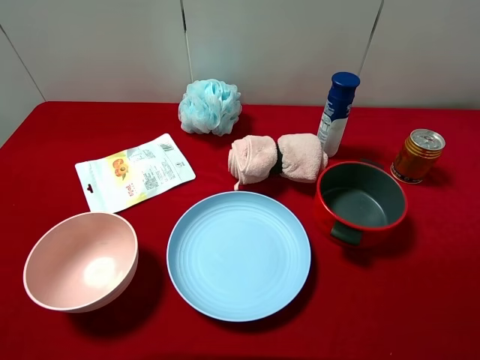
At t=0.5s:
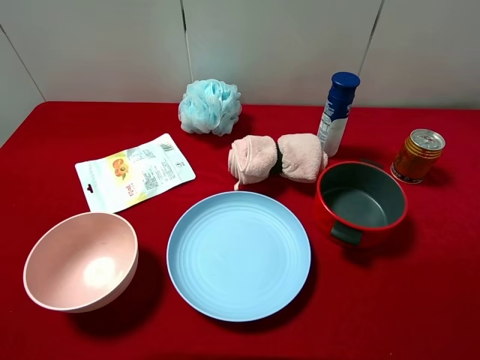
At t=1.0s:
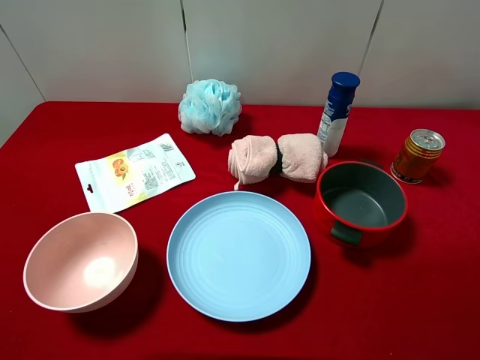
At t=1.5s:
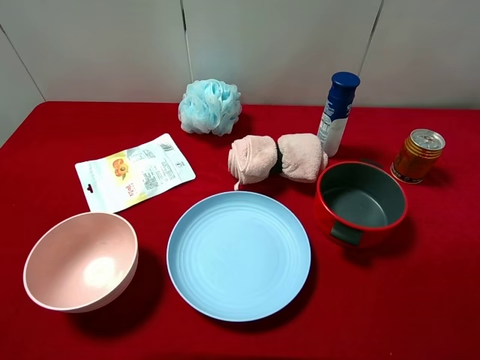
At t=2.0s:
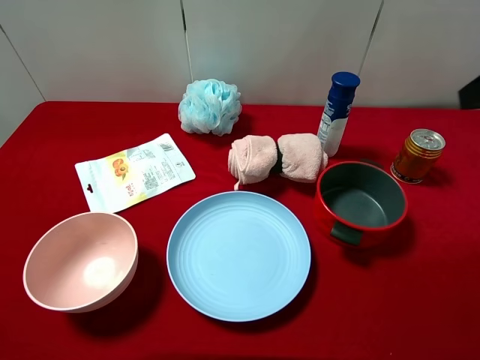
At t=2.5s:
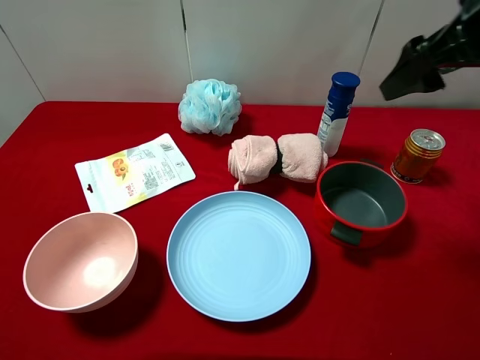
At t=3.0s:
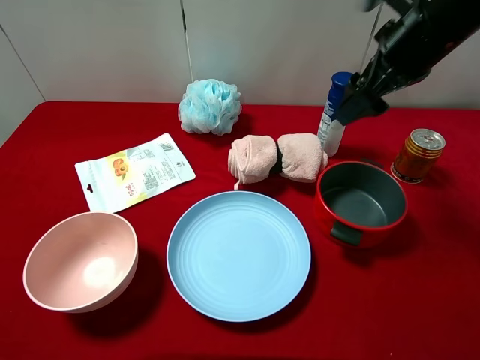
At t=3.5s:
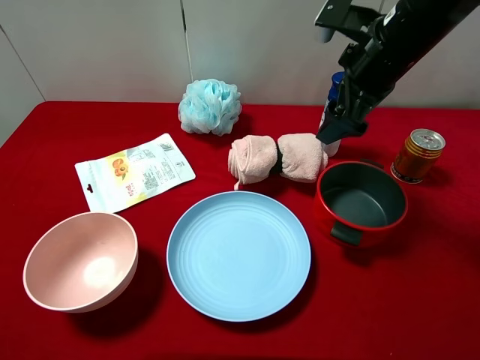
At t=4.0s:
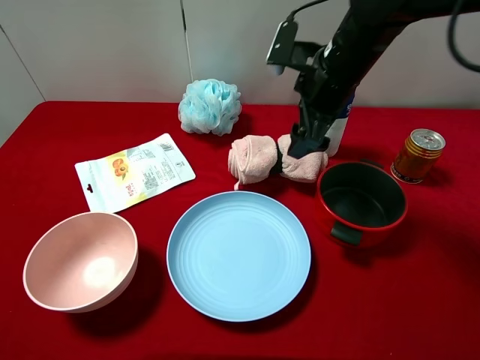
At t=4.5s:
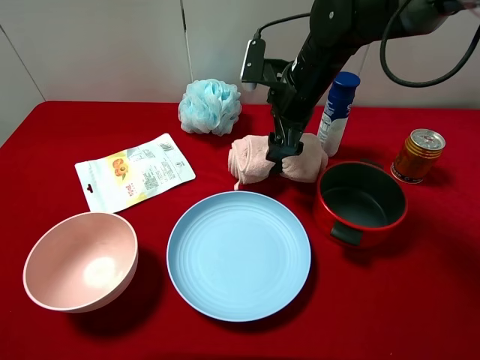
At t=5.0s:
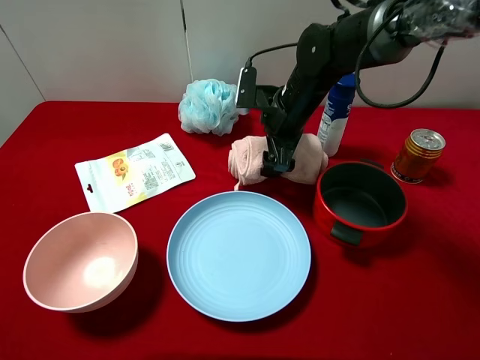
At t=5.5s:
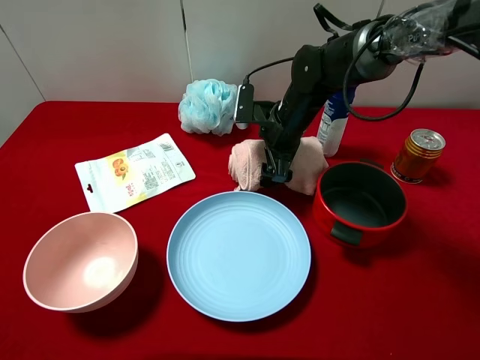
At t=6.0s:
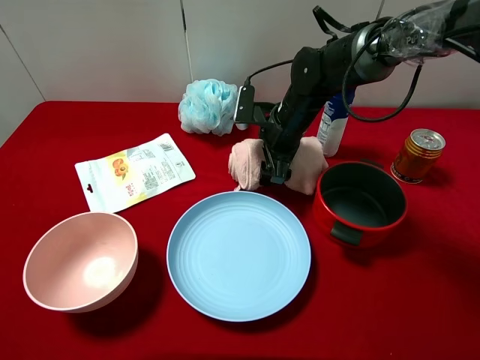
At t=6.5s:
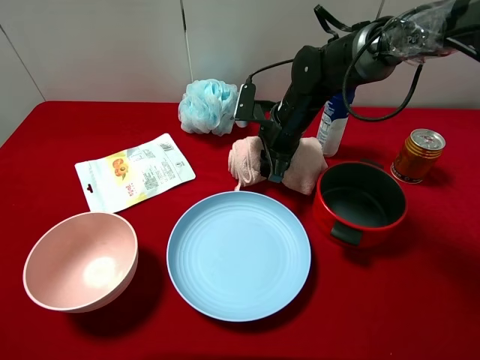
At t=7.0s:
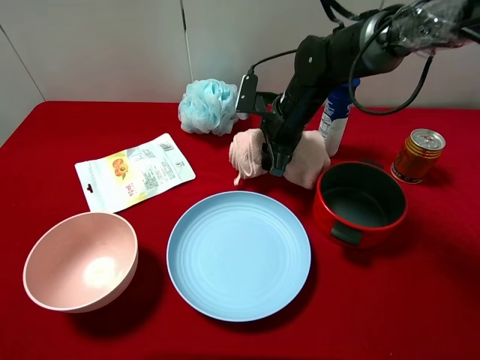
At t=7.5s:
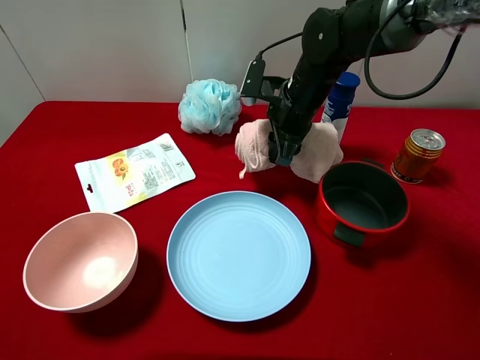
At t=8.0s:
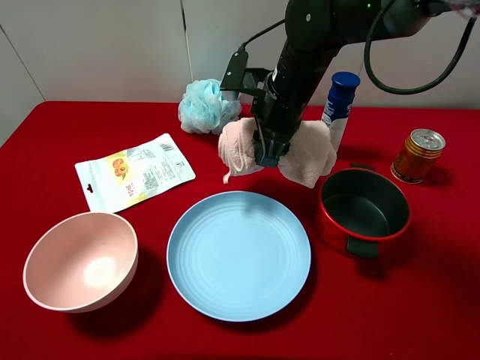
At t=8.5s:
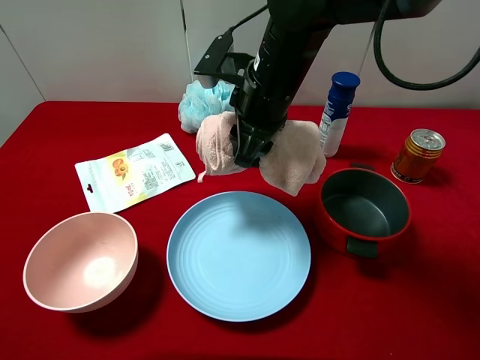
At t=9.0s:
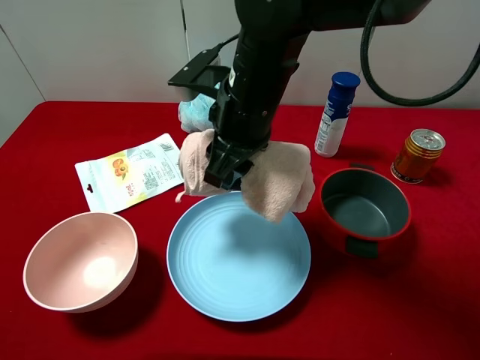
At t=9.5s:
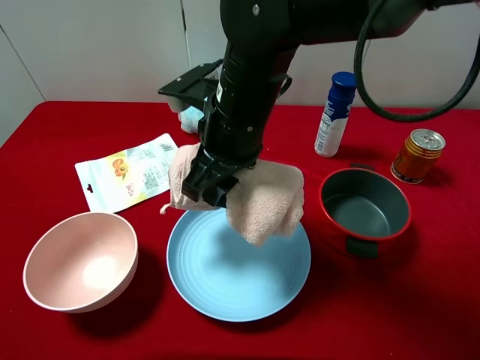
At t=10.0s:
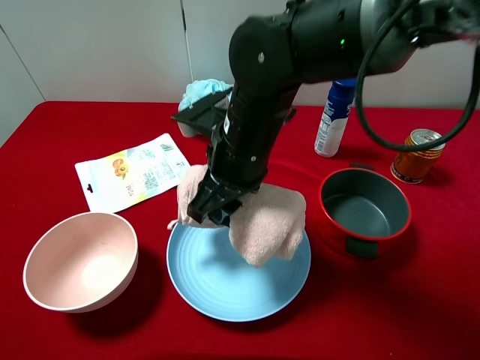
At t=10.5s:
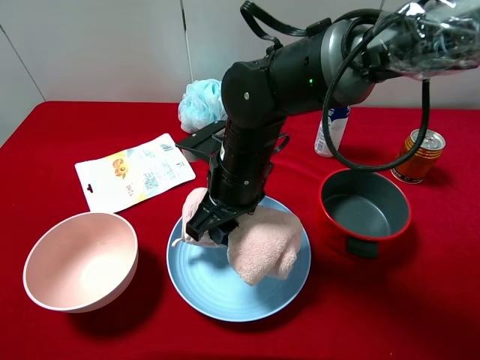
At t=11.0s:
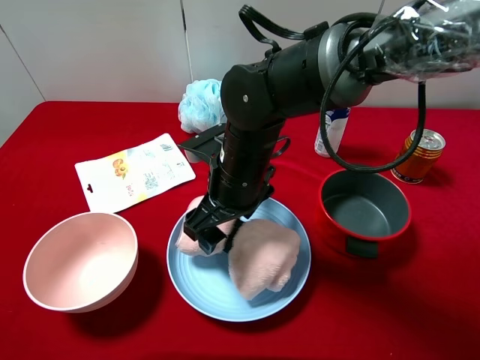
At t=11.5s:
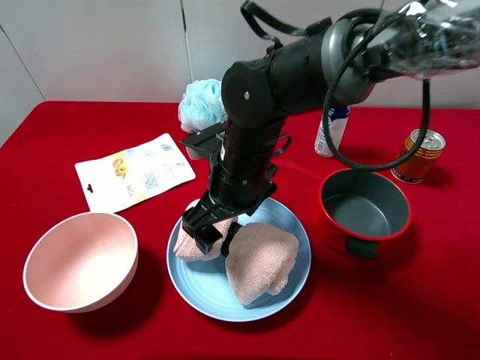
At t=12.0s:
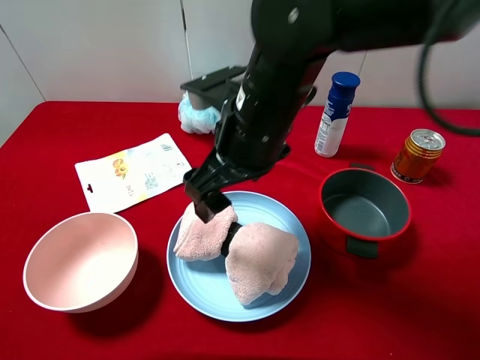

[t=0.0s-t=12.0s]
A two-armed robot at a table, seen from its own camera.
Task of the whole recording: pick up an item with a gripper and place it in a random container on the desktop.
t=2.0s to t=4.0s: The right gripper moves to the left, forward and downward, about 25 cm.
t=4.0s to t=6.0s: The right gripper is displaced downward by about 10 cm.
t=6.0s to t=8.0s: The right gripper moves upward, roughly 10 cm, and closes its fingers.
t=8.0s to t=10.0s: The right gripper heads backward and to the left, covering roughly 10 cm.
t=10.0s to t=12.0s: The right gripper changes place by some 5 cm, and opens.

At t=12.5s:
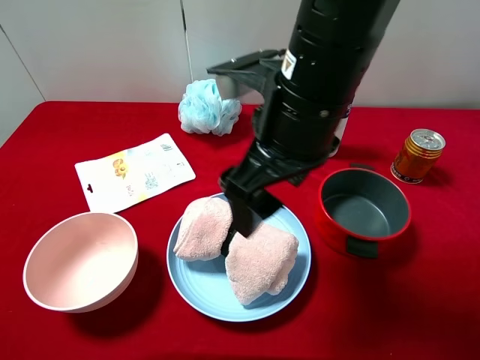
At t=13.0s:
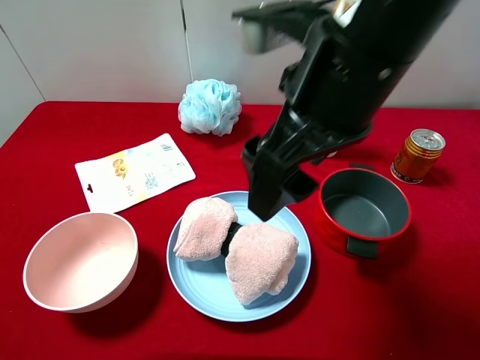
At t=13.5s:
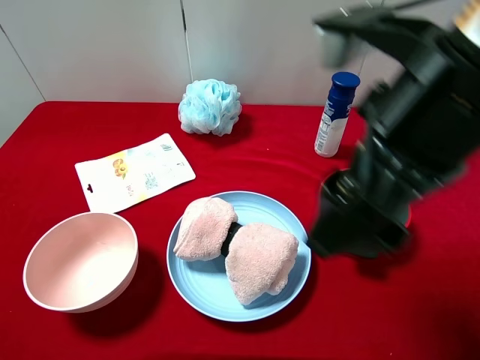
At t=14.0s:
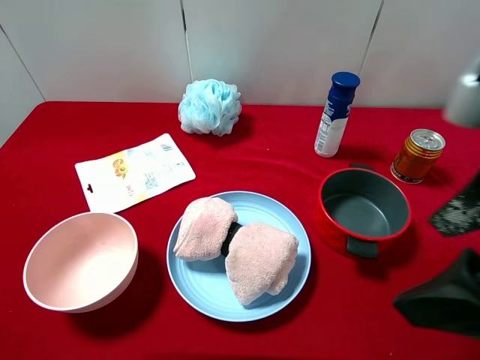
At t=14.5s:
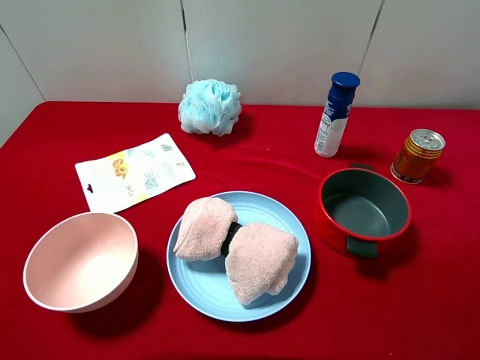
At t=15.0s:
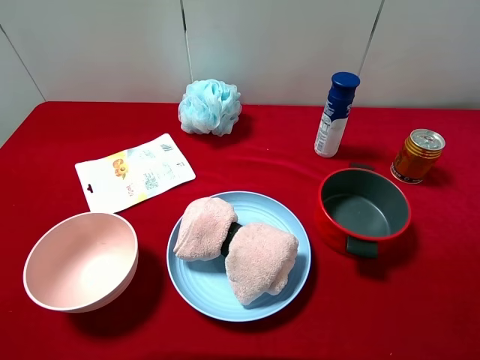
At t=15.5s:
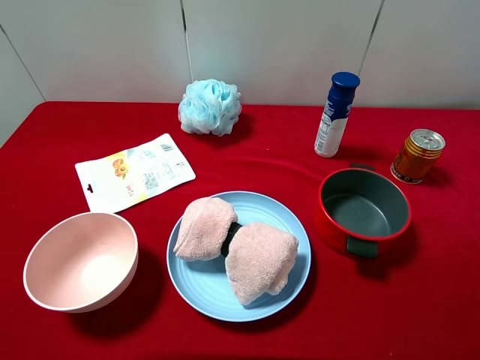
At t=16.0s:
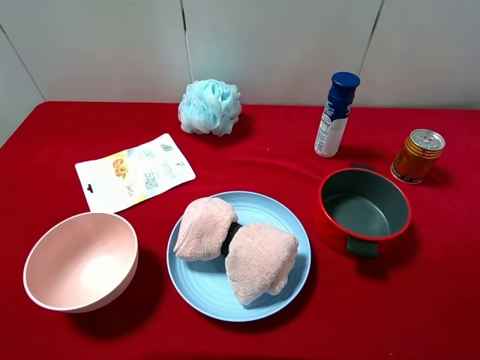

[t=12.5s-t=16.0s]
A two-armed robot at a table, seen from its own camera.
Task of the whole recording: pick up an item with a gripper and place it in a random container on the desktop.
t=12.5s to t=14.5s: The right gripper shifts about 25 cm to the right and backward.

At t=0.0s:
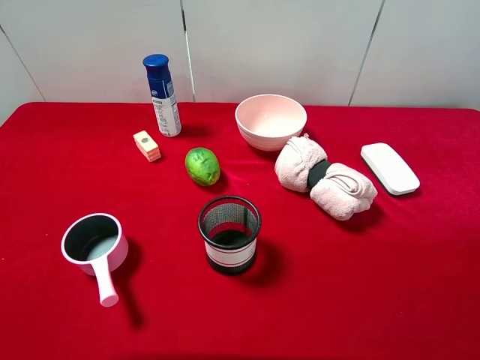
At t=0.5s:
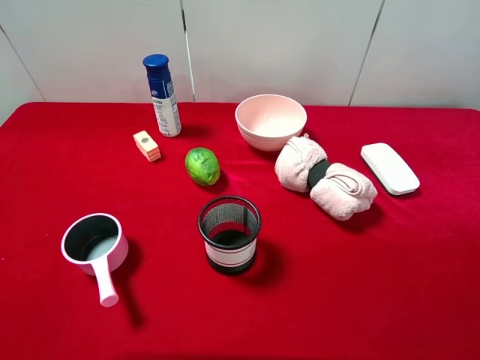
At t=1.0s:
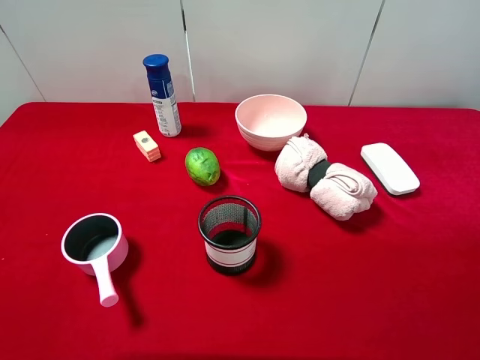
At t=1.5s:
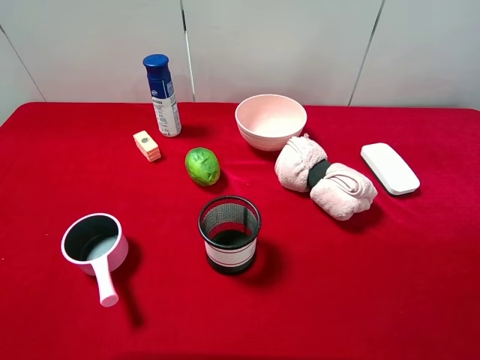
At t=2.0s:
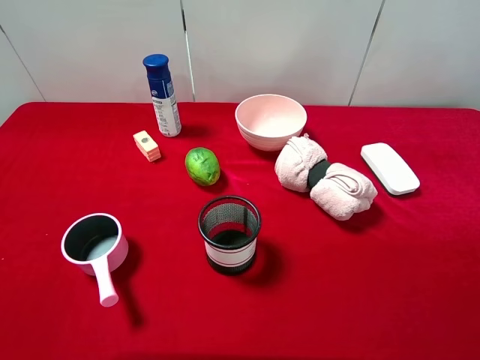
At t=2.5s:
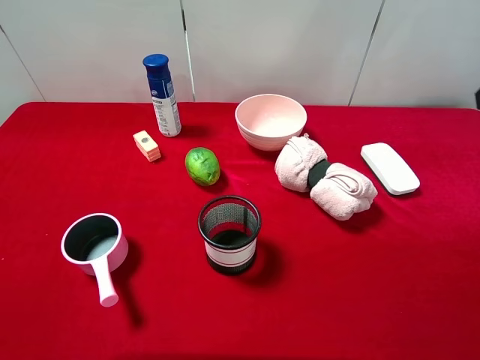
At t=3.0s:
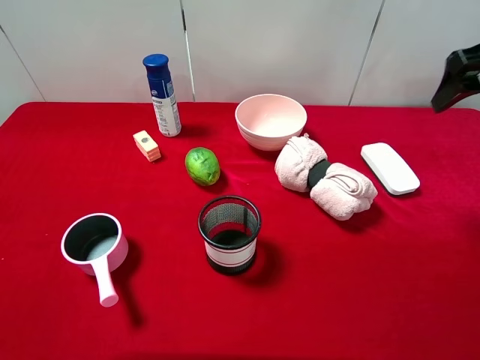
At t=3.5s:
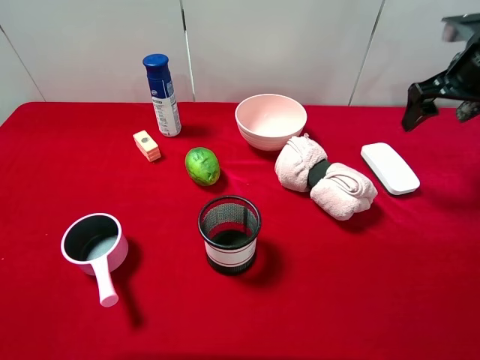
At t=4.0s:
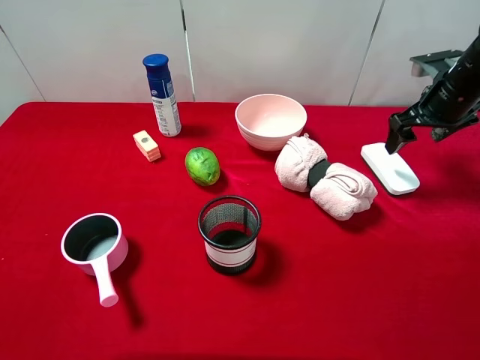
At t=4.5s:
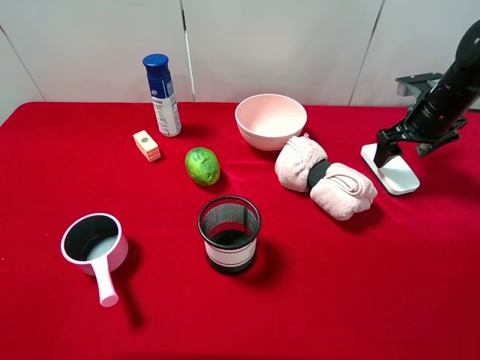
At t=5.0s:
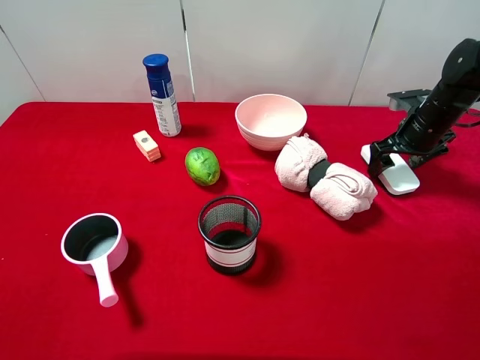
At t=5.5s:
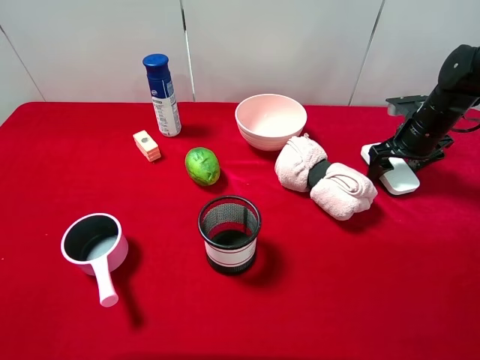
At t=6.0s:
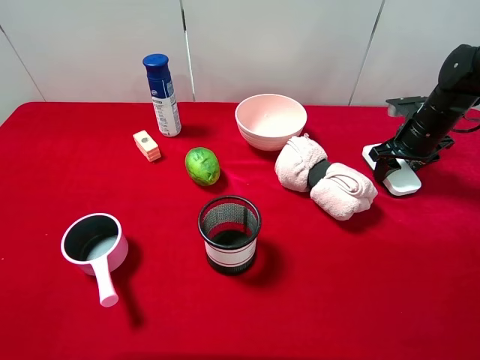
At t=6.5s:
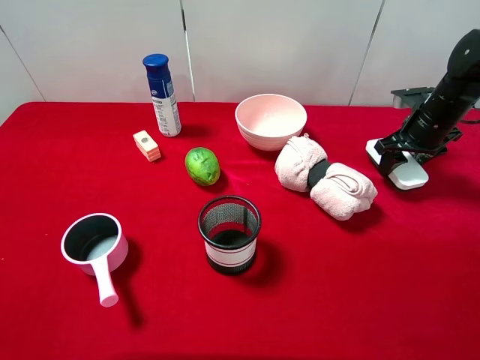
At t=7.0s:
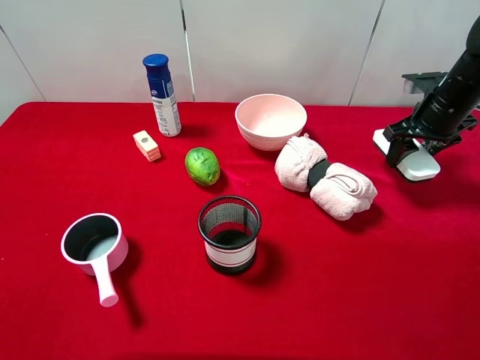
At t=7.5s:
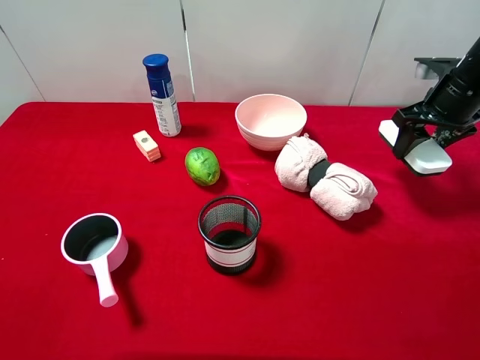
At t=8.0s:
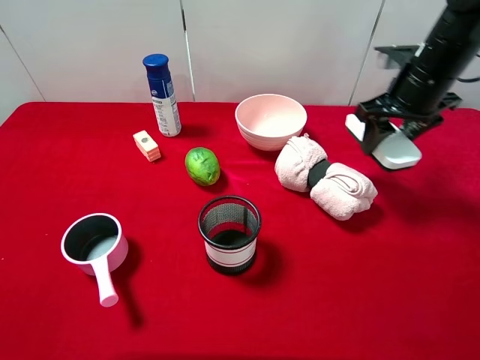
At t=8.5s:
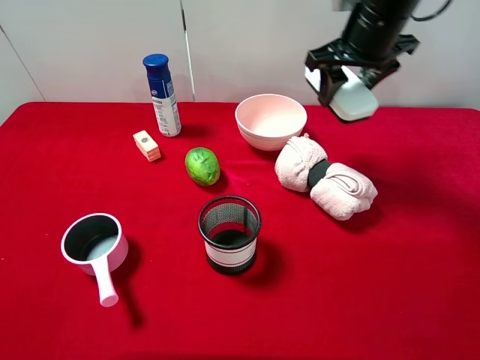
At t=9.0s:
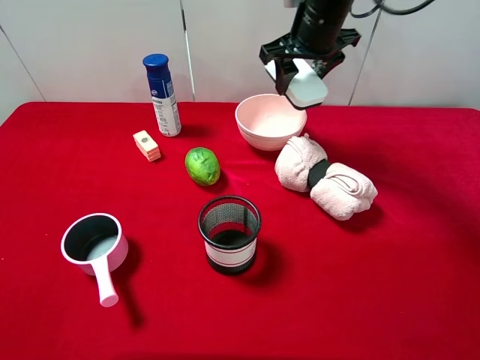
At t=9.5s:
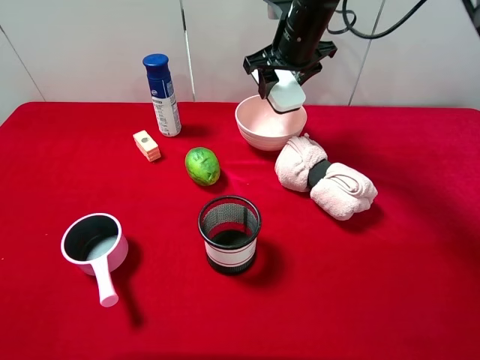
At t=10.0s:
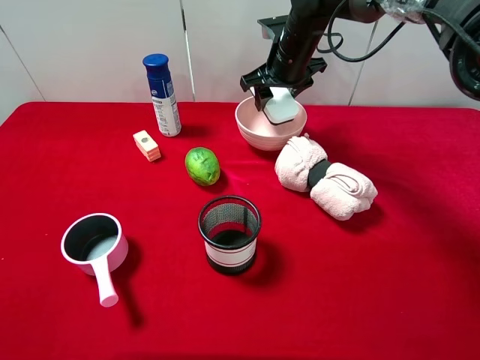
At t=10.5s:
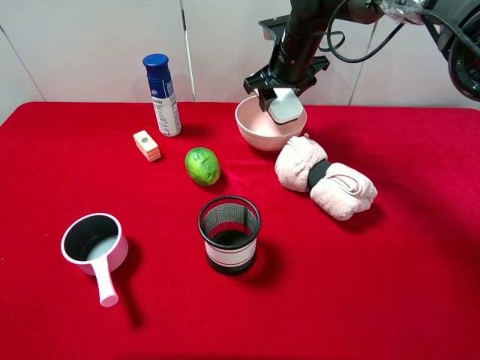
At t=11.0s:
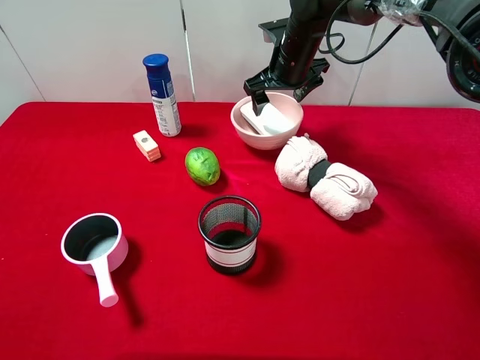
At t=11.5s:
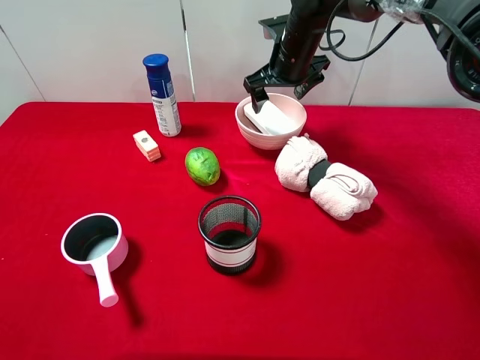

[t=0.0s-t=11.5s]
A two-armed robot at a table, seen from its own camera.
Task of the whole recording: pick up an item with a gripper and place it in a random container on the desktop.
t=2.0s to t=4.0s: The right gripper shifts roughly 30 cm forward and downward.
t=4.0s to t=6.0s: The right gripper goes approximately 5 cm downward, and closes its fingers.
t=6.0s to t=7.5s: The right gripper is displaced upward by about 10 cm.
t=7.5s to t=9.5s: The right gripper moves to the left, roughly 20 cm.
t=9.5s to t=11.5s: The right gripper opens.
